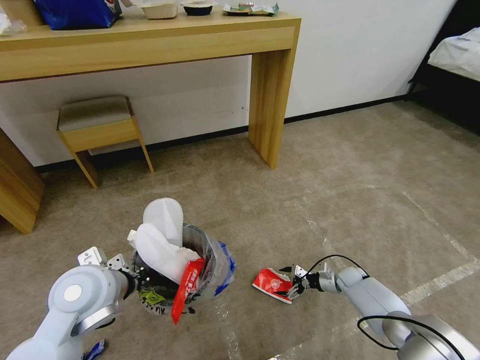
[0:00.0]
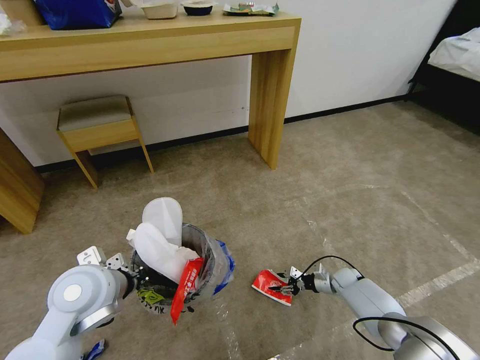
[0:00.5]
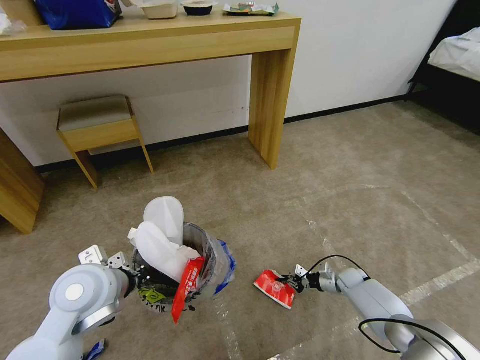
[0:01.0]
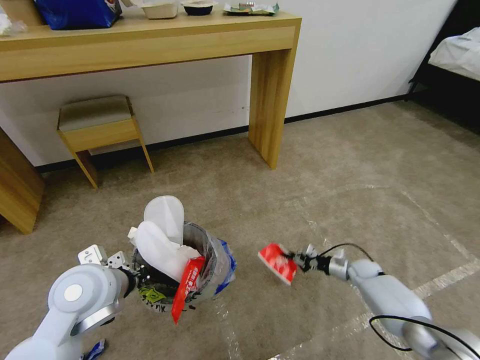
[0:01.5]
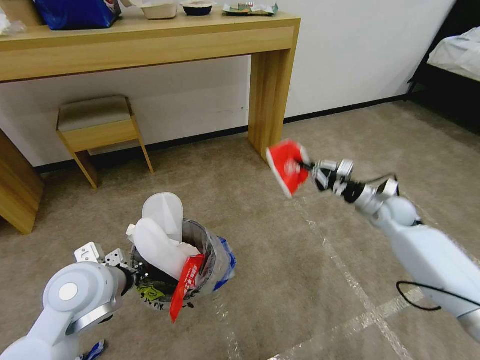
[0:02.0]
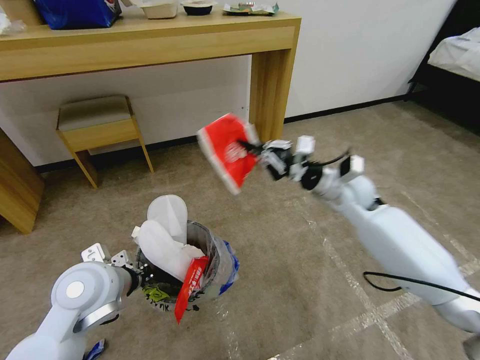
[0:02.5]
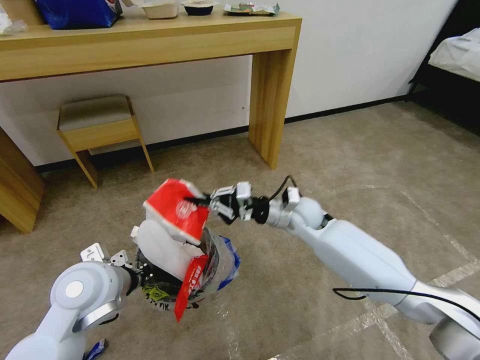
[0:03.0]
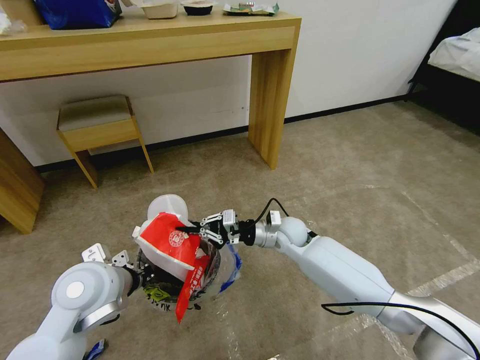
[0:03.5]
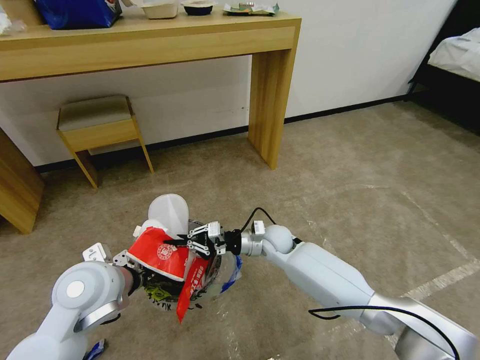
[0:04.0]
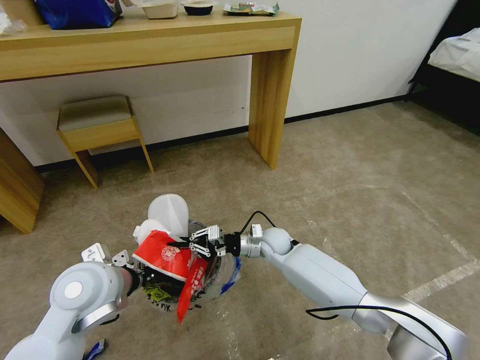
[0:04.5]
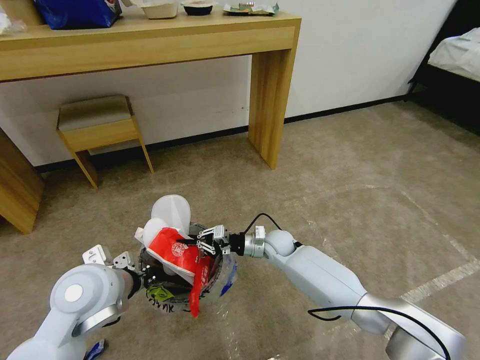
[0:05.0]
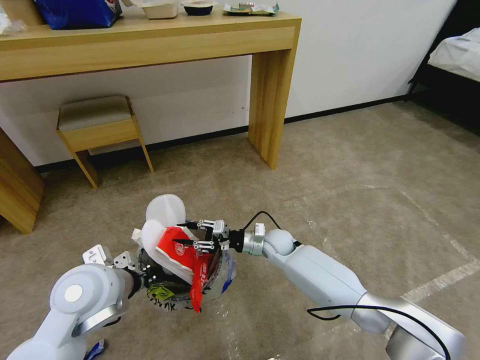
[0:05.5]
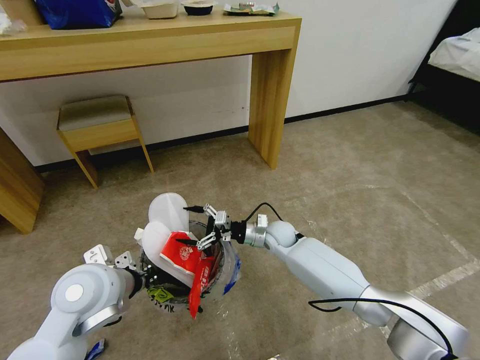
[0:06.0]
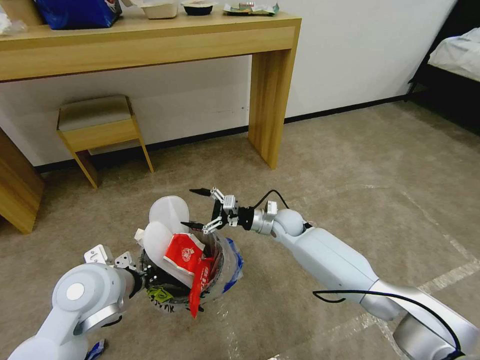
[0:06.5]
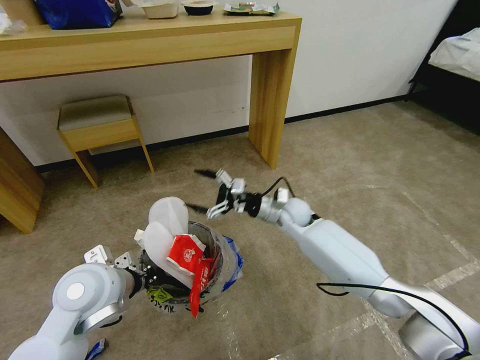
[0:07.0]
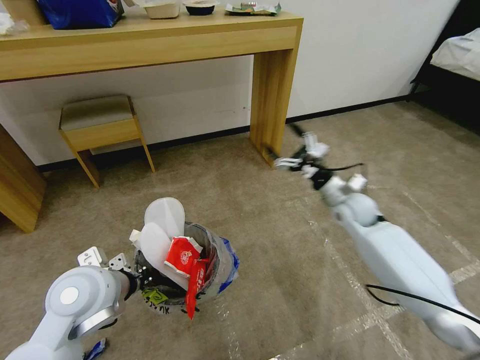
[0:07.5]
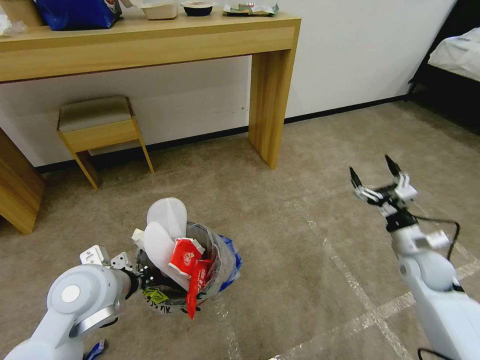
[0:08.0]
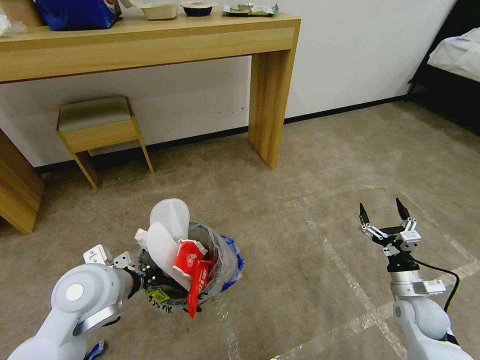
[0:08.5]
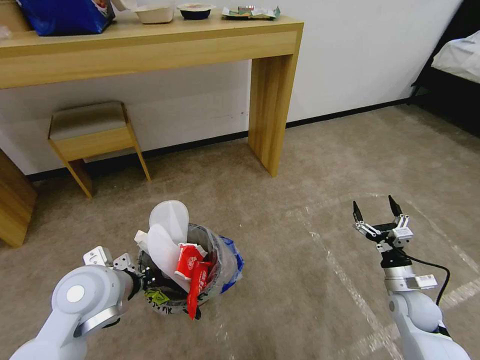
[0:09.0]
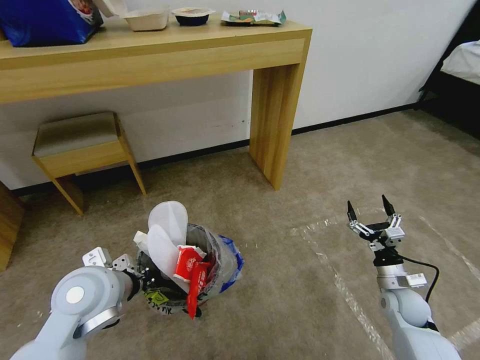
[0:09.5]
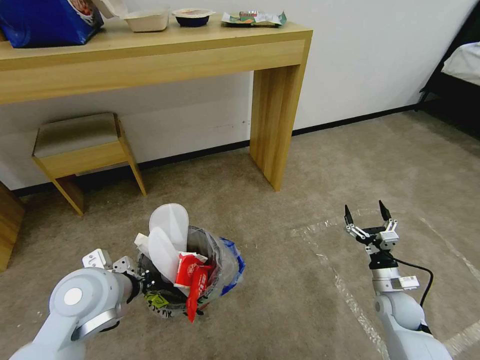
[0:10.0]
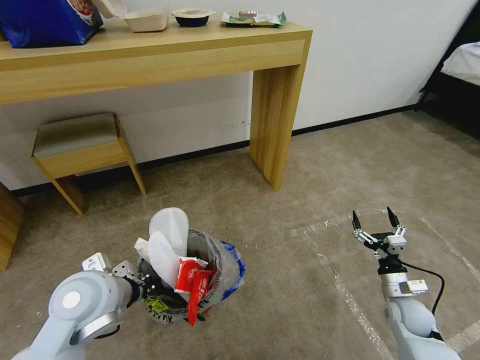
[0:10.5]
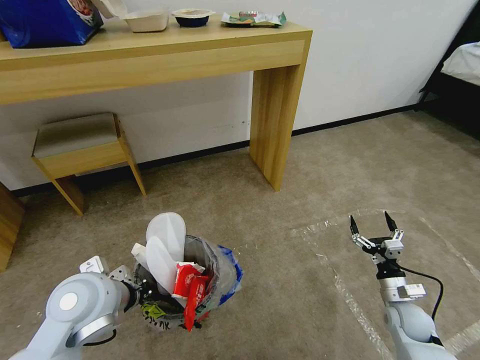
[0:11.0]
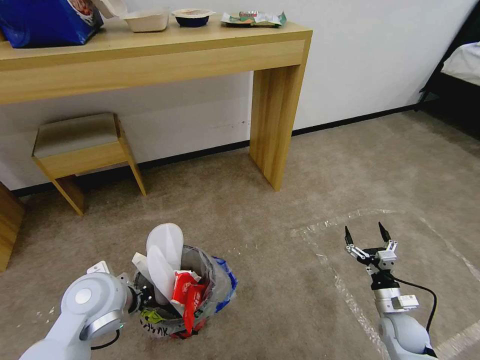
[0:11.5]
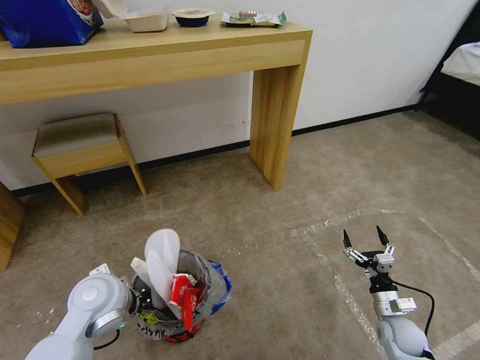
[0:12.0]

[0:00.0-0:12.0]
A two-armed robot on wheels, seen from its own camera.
Task of the whole recording: Pick up the trash bin and place the garbage on the floor into it.
0:00.0 to 0:02.0: The right gripper goes roughly 30 cm upward, and closes.
0:02.0 to 0:04.0: The right gripper moves to the left, roughly 30 cm.
0:04.0 to 0:06.0: The right gripper opens its fingers.
0:06.0 to 0:08.0: The right gripper travels to the right and backward by some 35 cm.
0:08.0 to 0:10.0: The right gripper shifts about 15 cm downward and backward.
0:10.0 to 0:12.0: The right gripper changes place by approximately 5 cm. Meanwhile the left gripper heads downward, covering approximately 5 cm.

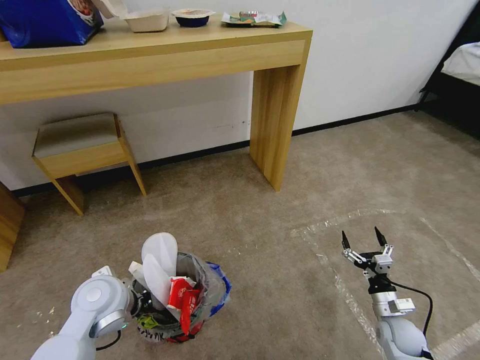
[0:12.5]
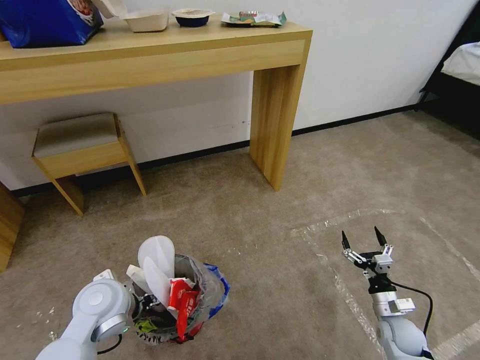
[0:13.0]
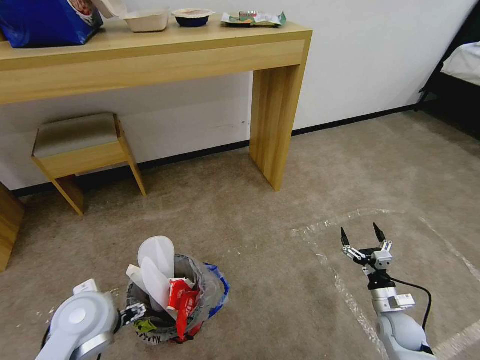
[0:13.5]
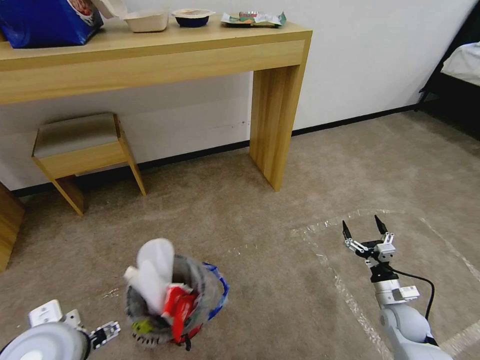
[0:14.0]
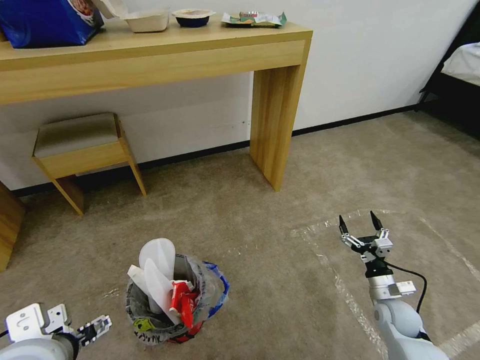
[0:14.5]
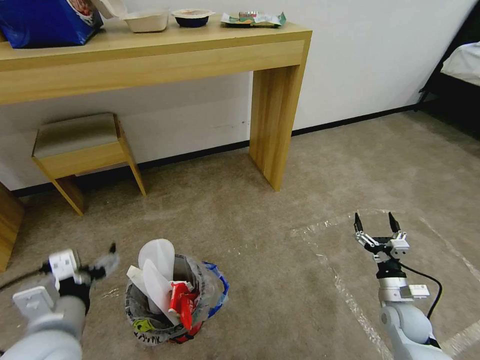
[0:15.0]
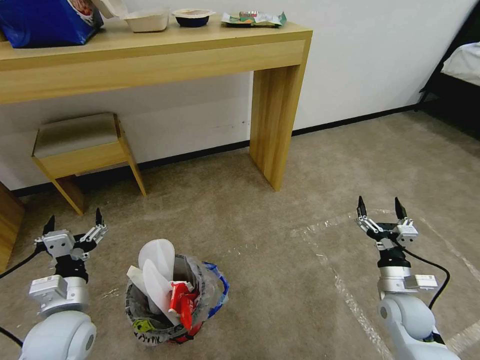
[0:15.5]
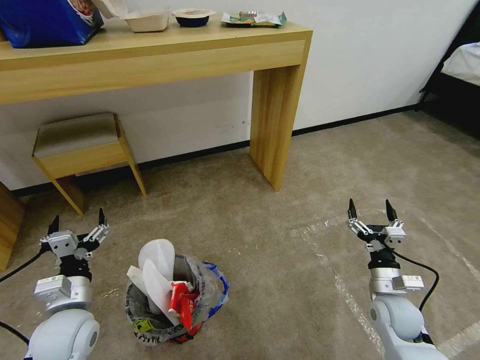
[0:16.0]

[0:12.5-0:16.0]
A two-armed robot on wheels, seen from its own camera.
Task of the whole recording: Pick up the trash bin and place the garbage on the floor into it.
0:12.5 to 0:14.5: The left gripper travels backward and upward by about 15 cm, and opens its fingers.
0:14.5 to 0:16.0: The left gripper moves downward and forward, roughly 15 cm. The right gripper heads upward, covering about 5 cm.

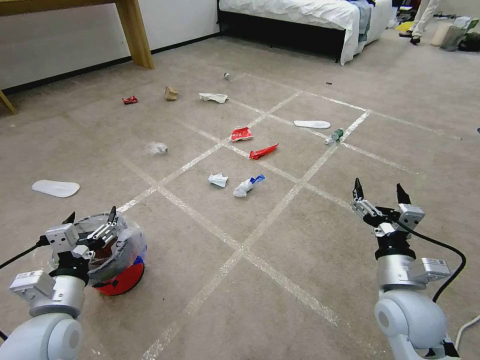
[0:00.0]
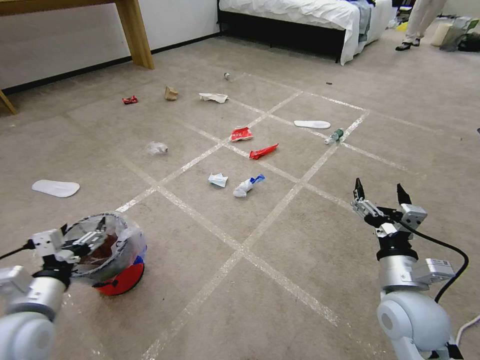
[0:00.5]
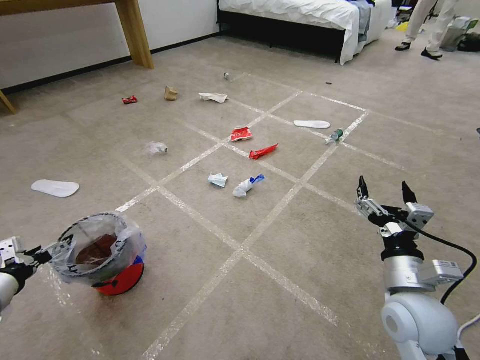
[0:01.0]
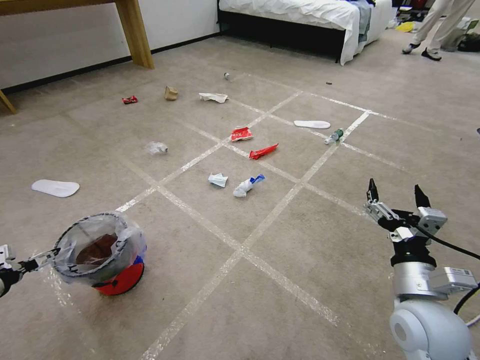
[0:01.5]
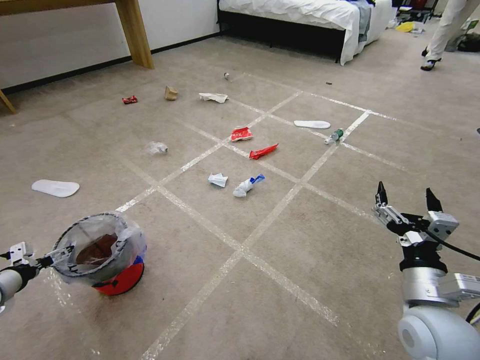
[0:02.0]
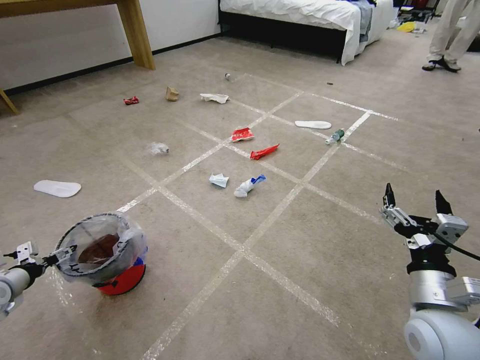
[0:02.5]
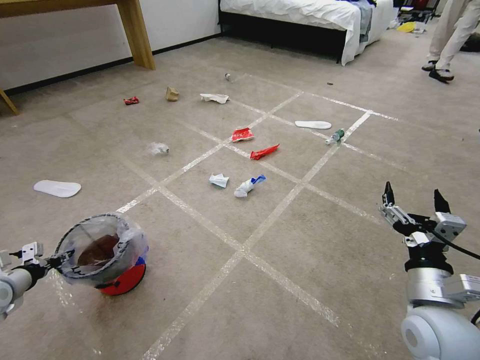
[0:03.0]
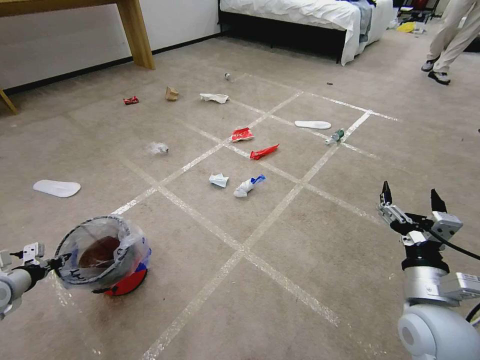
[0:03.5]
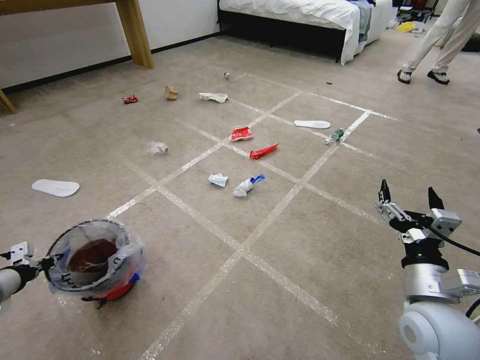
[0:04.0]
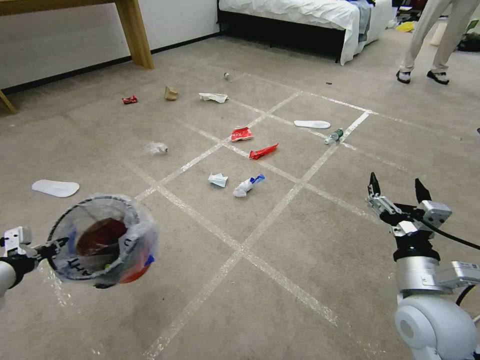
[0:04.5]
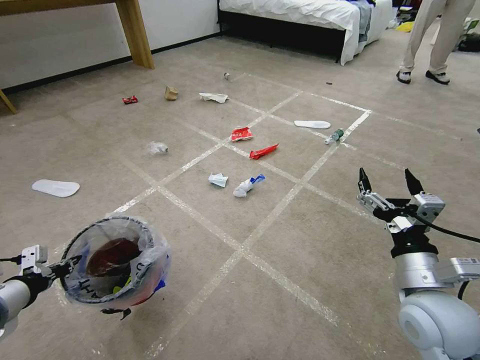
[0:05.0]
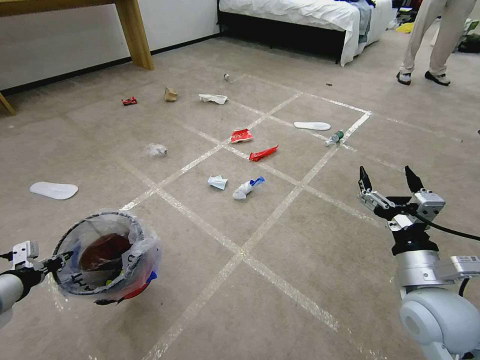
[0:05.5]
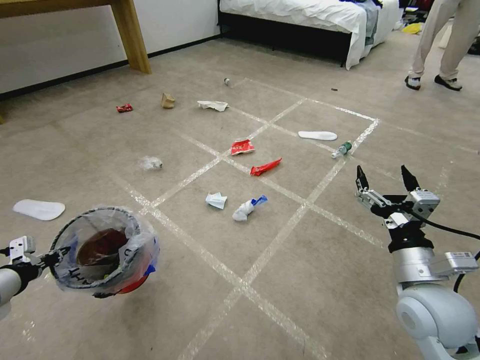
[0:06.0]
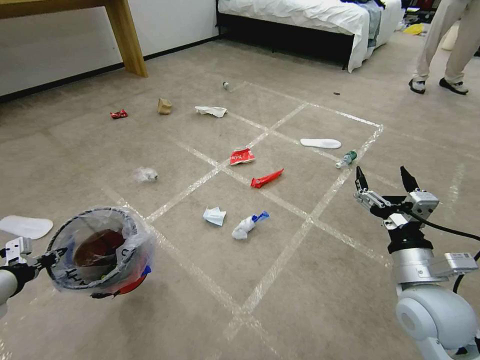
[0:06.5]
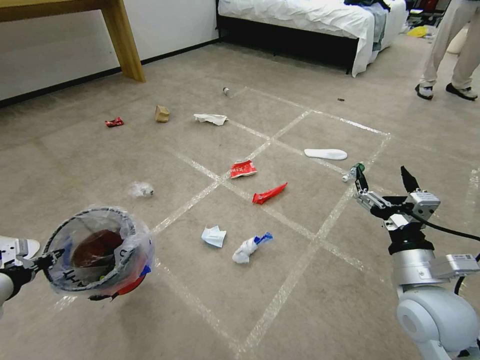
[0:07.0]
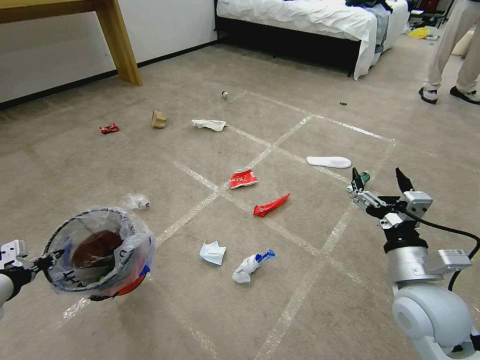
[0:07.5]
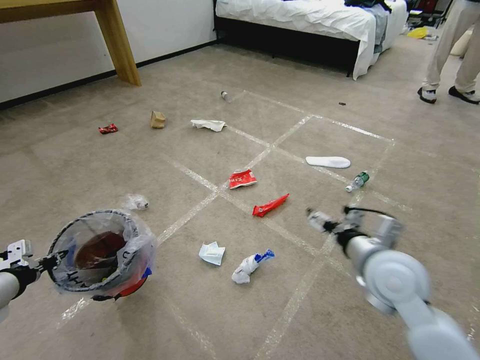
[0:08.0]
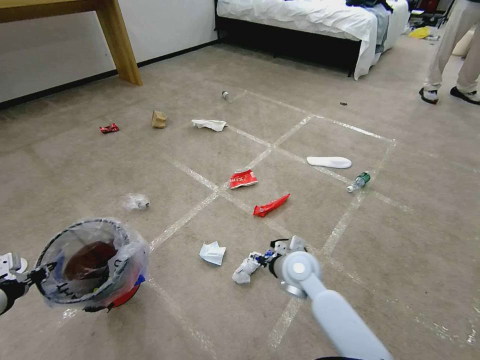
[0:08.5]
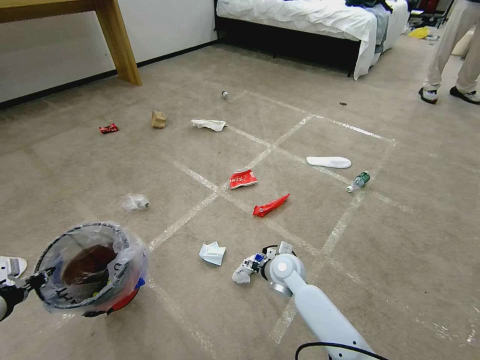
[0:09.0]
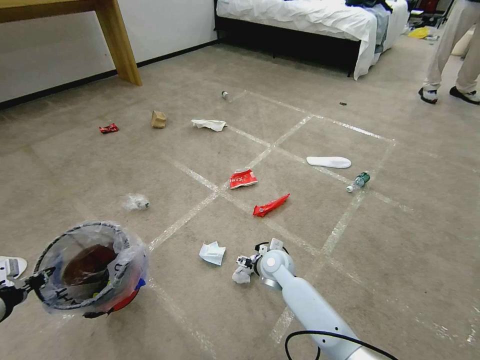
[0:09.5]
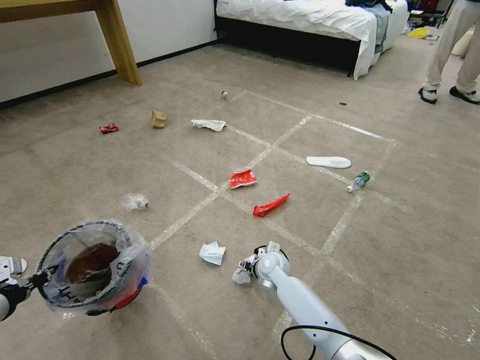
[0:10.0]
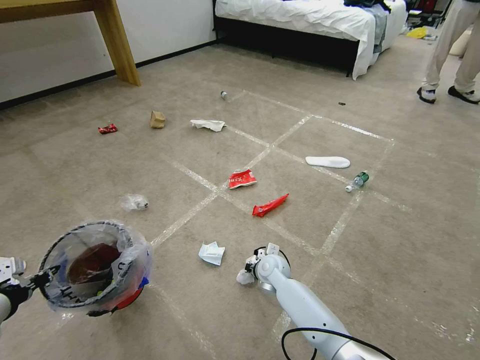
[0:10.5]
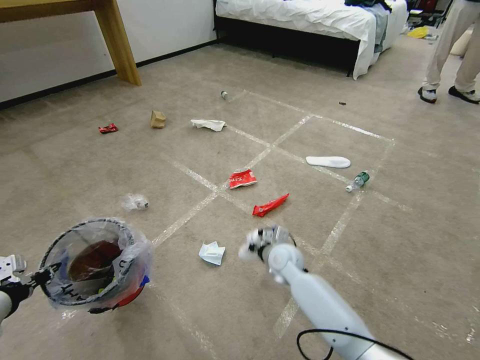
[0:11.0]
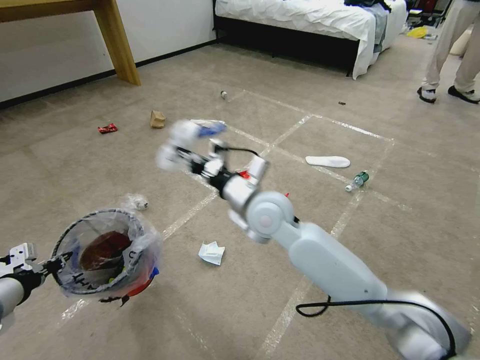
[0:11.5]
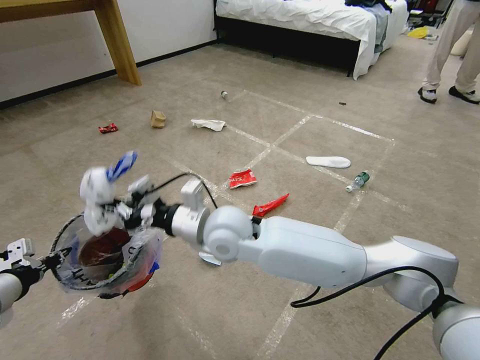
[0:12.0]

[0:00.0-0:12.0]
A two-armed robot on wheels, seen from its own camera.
Task of the whole recording: Pick up the trash bin and place the garbage on the floor into it.
0:02.0 to 0:04.0: The left gripper closes.
0:04.0 to 0:06.0: The left gripper is displaced to the right and upward by about 10 cm.
0:06.0 to 0:08.0: The right gripper moves some 5 cm.
0:08.0 to 0:10.0: The right gripper travels downward, to the left and forward by about 35 cm.
0:10.0 to 0:12.0: The right gripper shifts some 30 cm upward and to the left, and closes.
